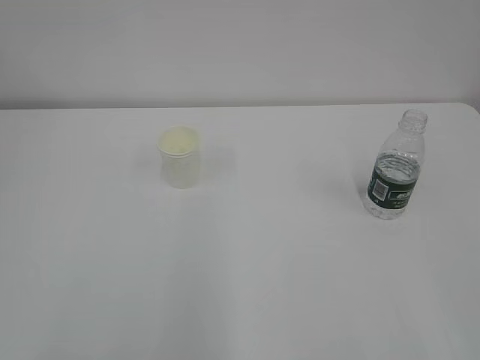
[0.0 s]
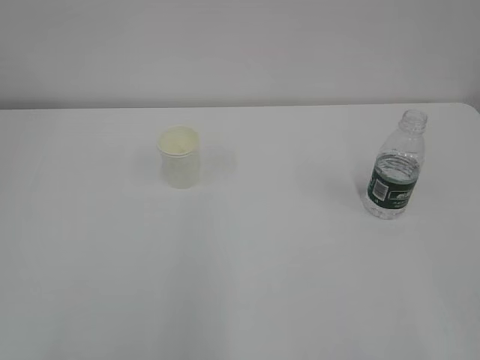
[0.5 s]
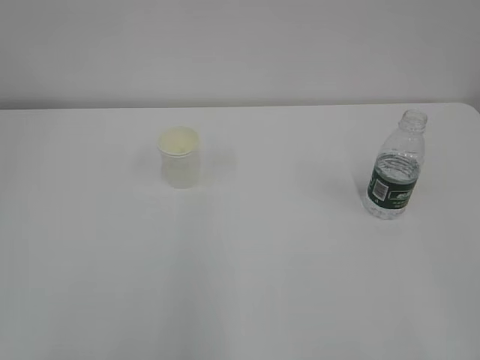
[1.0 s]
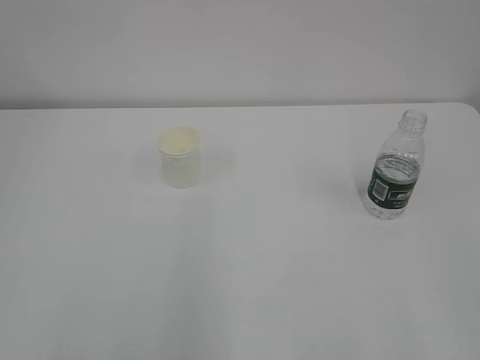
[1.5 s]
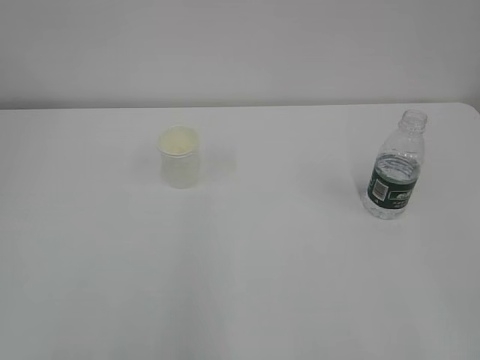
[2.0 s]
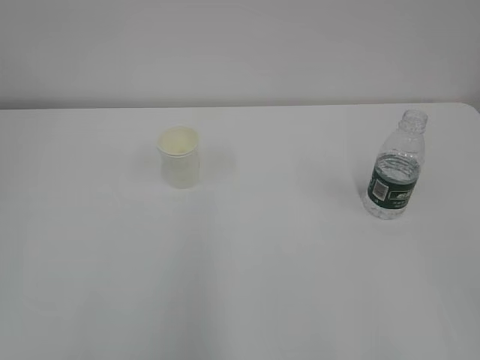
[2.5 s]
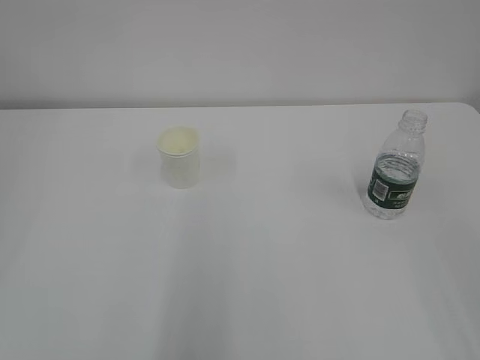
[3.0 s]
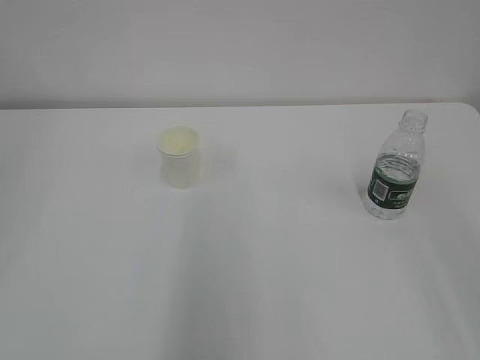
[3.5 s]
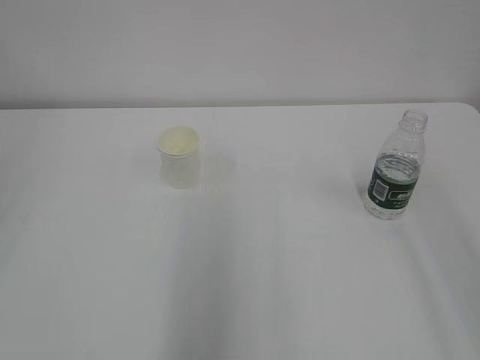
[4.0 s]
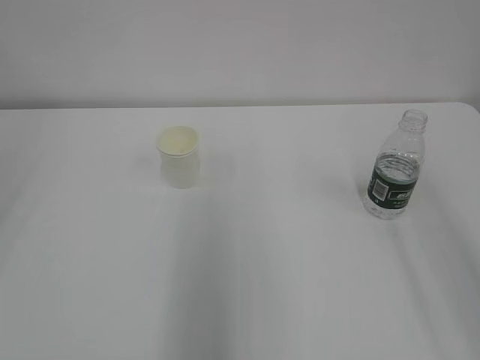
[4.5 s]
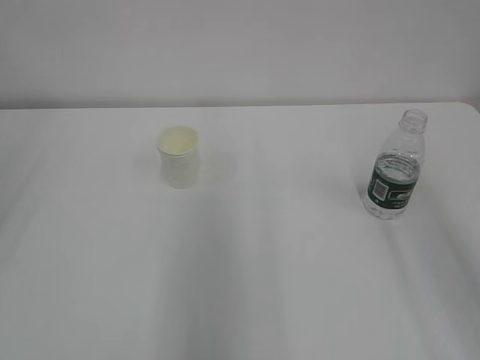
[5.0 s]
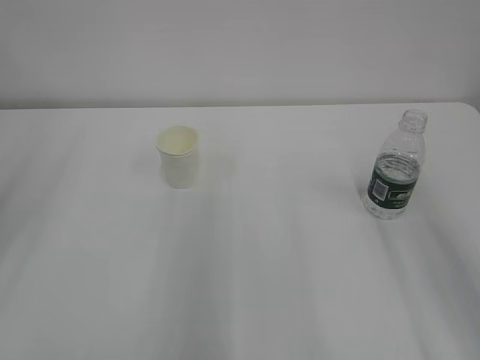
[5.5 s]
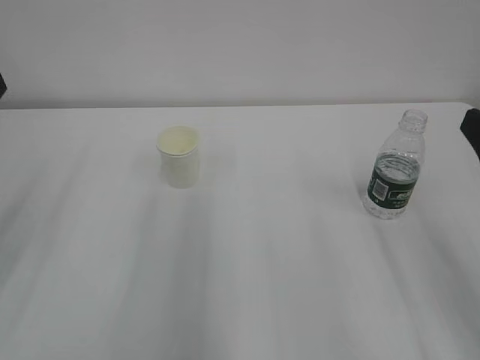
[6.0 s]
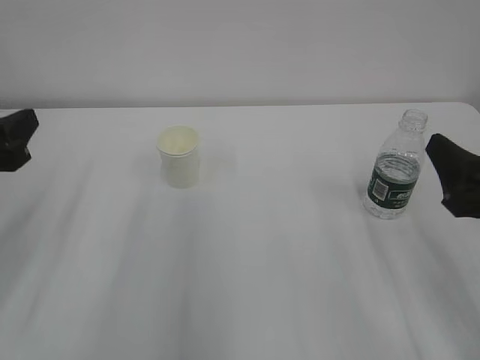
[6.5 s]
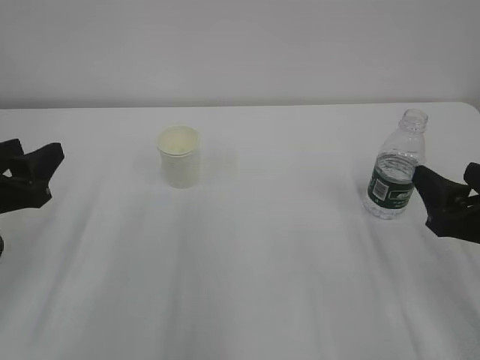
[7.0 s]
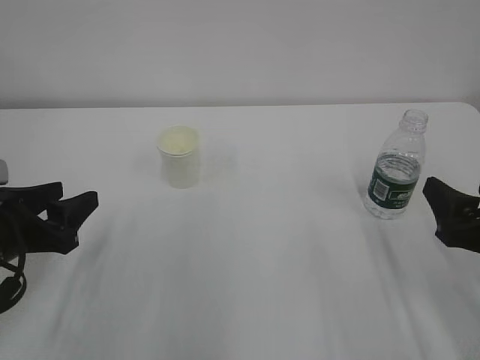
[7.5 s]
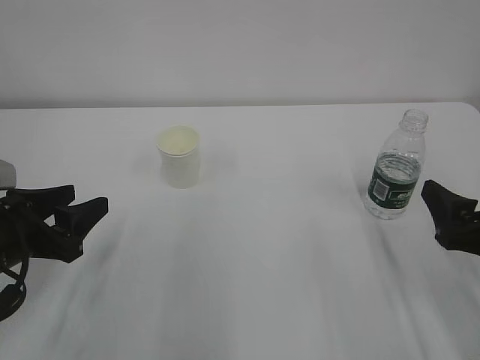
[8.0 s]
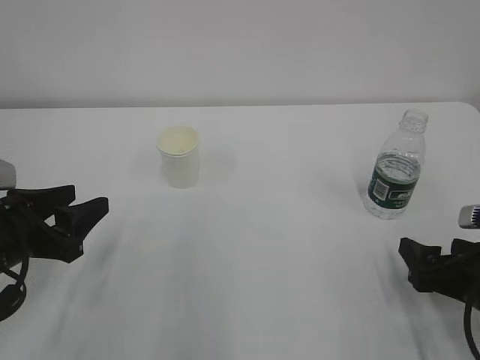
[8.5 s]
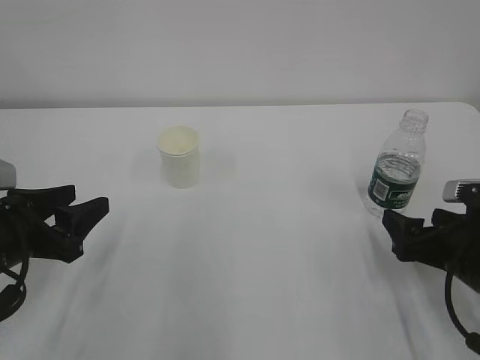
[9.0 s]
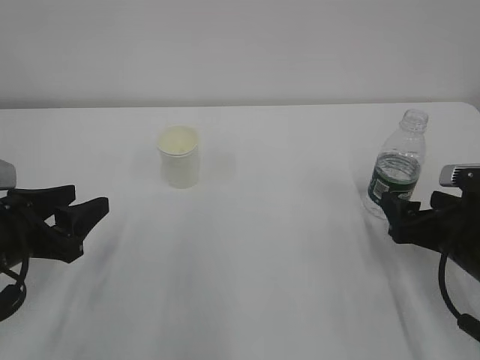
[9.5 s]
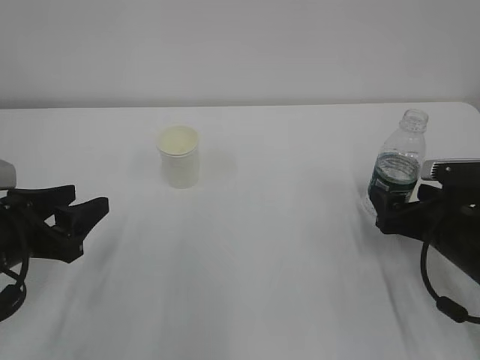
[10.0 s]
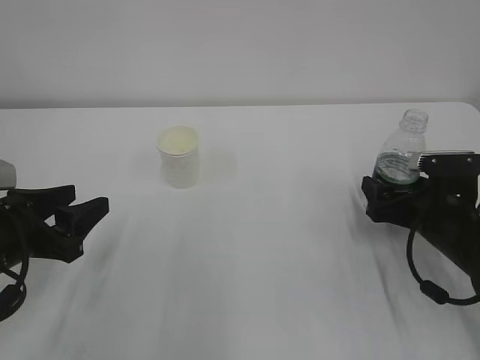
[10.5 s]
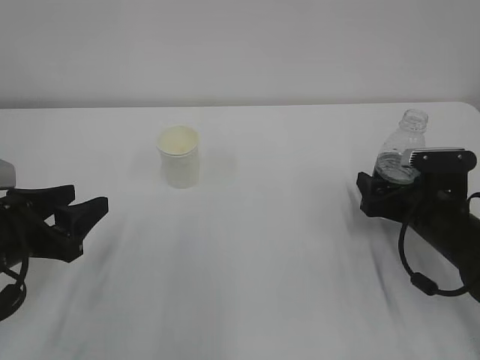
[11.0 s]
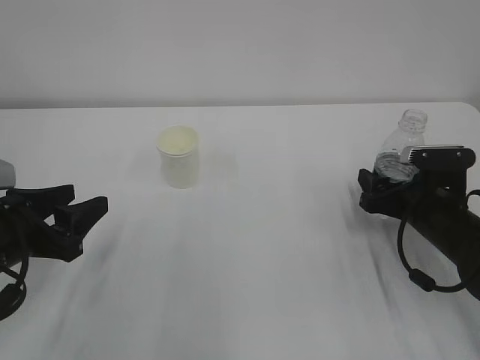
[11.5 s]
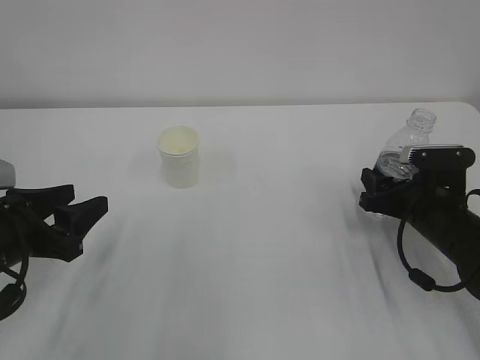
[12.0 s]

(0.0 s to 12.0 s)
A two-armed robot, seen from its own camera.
2.0 s - 4.0 s: The left gripper moves forward and upward, approximately 15 cm. Meanwhile the right gripper shifts about 15 cm upward and forward.
6.0 s - 8.0 s: Both grippers move downward, approximately 10 cm.
8.0 s - 10.0 s: The right gripper moves forward and downward, roughly 10 cm.
10.0 s - 12.0 s: The right gripper closes.

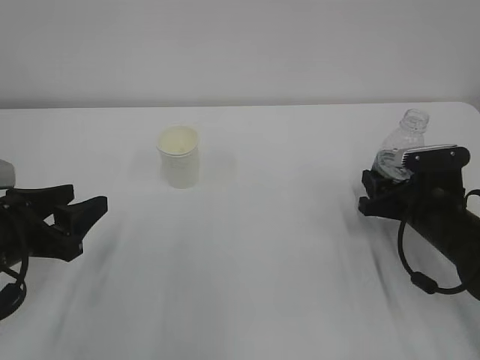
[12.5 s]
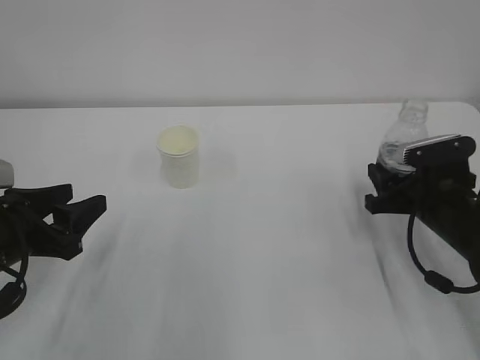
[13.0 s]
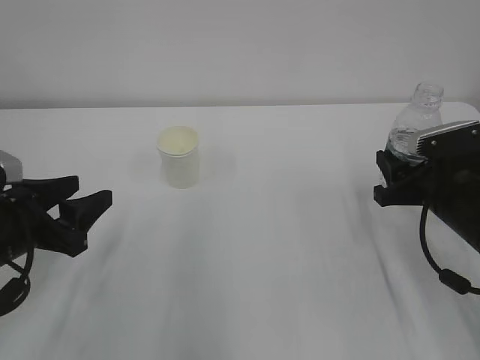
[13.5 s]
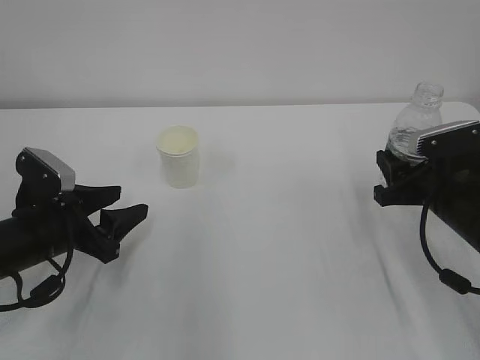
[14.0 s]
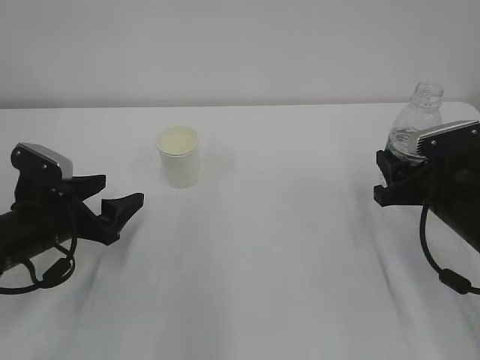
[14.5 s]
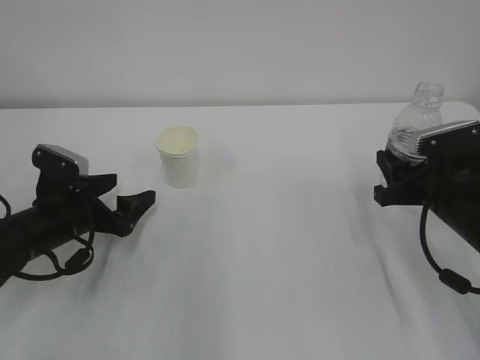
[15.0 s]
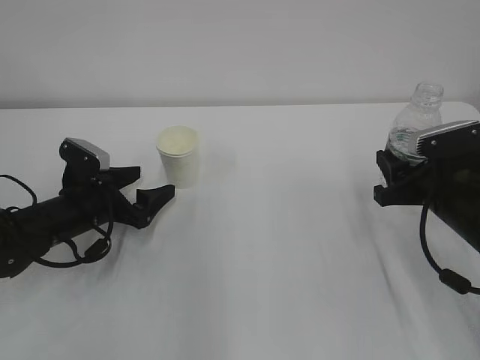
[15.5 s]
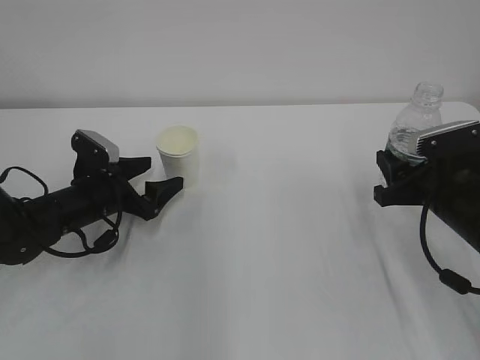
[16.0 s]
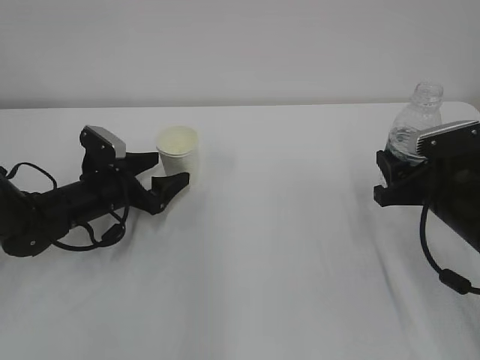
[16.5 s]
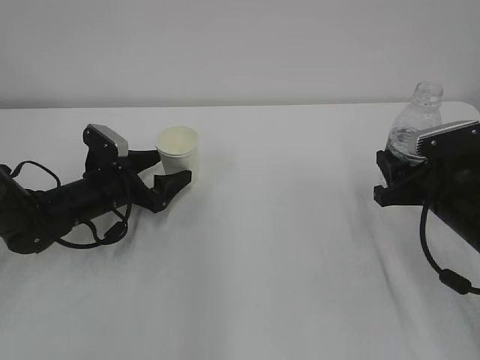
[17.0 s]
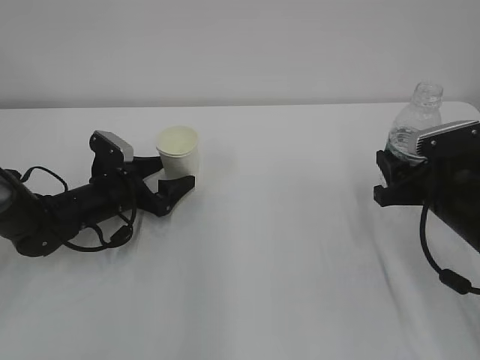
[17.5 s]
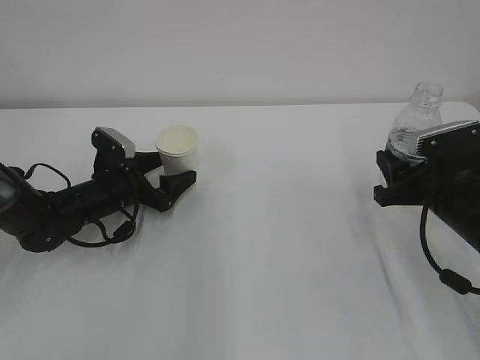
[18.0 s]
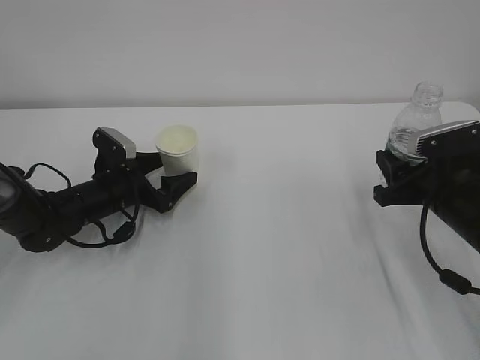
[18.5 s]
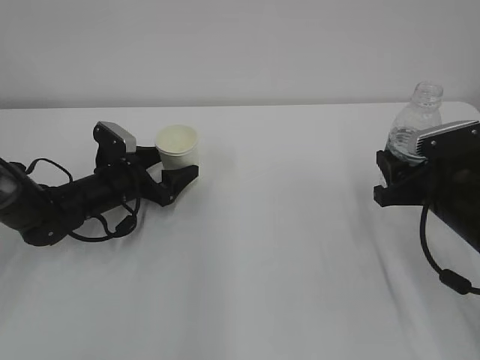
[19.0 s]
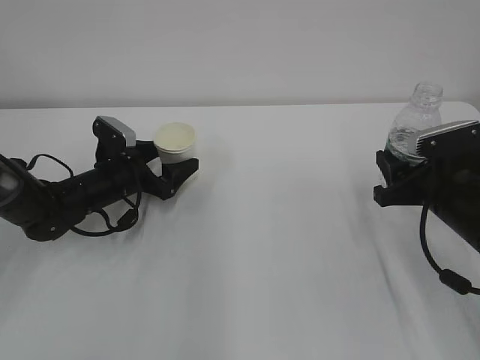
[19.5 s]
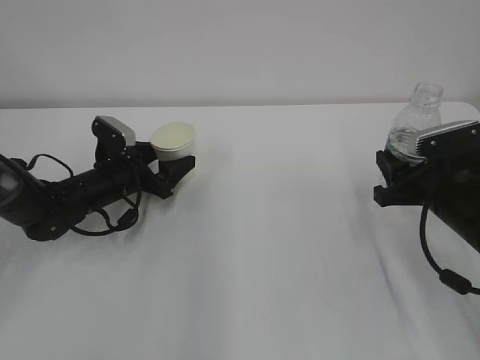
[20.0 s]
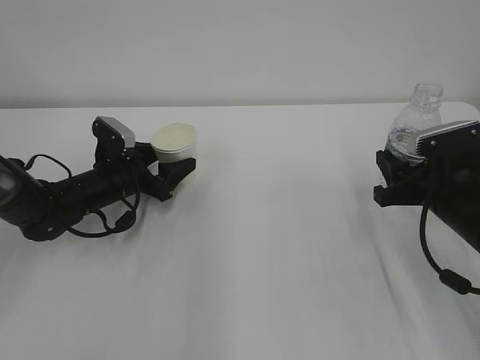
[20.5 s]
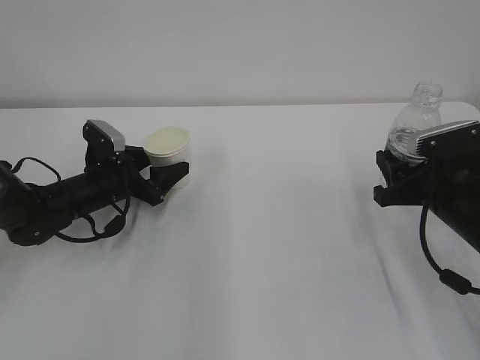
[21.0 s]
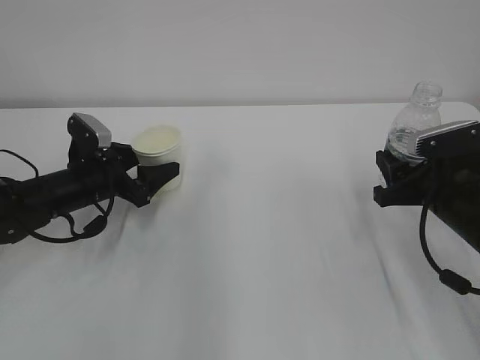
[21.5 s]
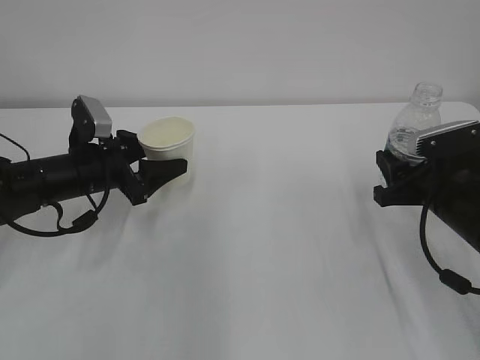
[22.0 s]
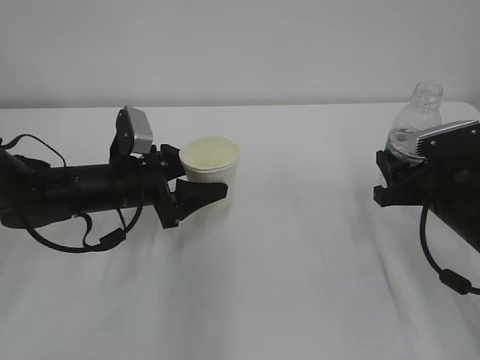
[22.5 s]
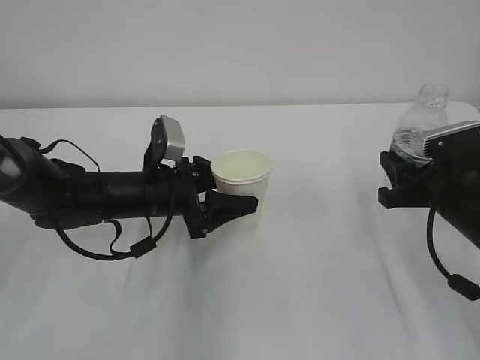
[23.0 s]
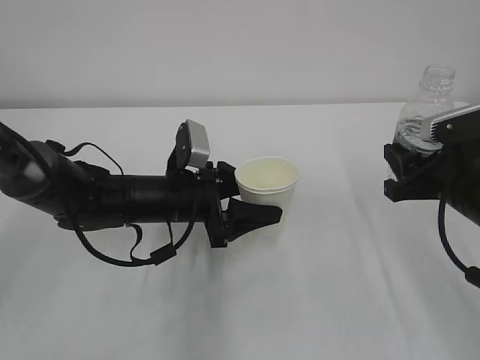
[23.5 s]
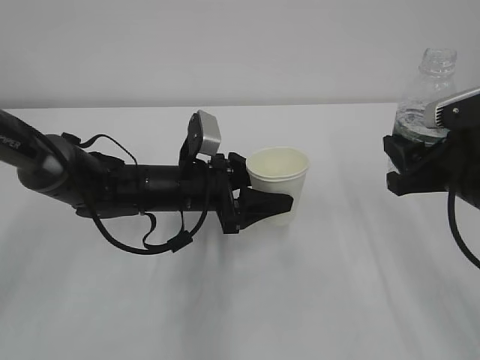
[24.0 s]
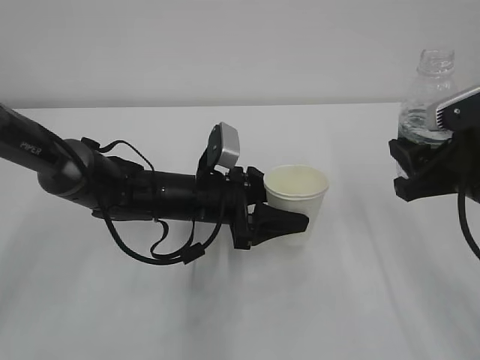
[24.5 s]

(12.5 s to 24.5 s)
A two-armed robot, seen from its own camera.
12.5 s - 14.5 s: The right gripper changes place by approximately 5 cm. Meanwhile the left gripper shifts some 5 cm forward, and opens.
14.5 s - 16.5 s: The left gripper shifts approximately 10 cm forward.
16.5 s - 18.5 s: The grippers stay close to where they were, moving slightly.
18.5 s - 20.5 s: The left gripper closes its fingers.
20.5 s - 22.5 s: The left gripper goes approximately 10 cm backward and upward.
22.5 s - 24.5 s: The left gripper shifts some 10 cm to the right. Meanwhile the right gripper goes about 5 cm upward.

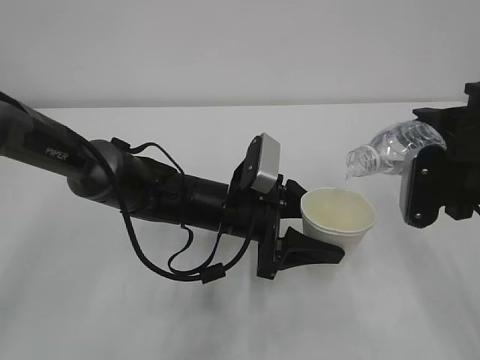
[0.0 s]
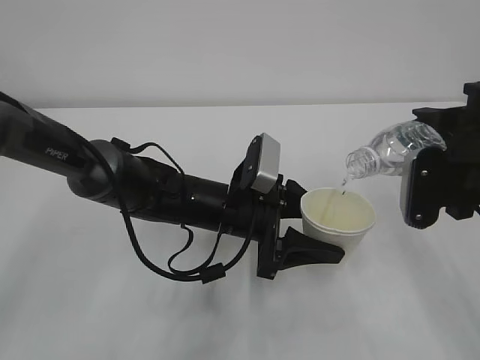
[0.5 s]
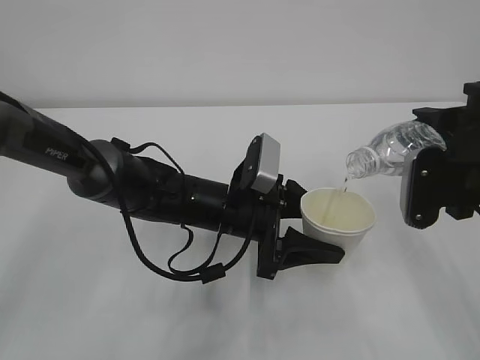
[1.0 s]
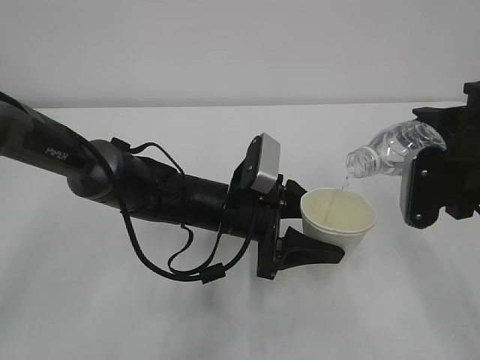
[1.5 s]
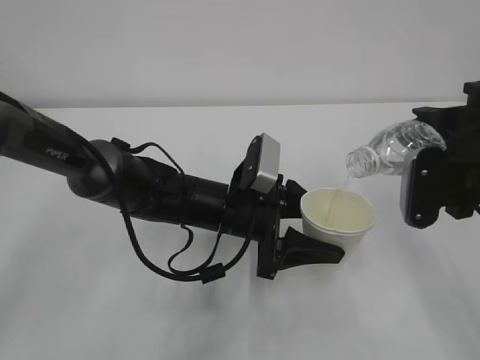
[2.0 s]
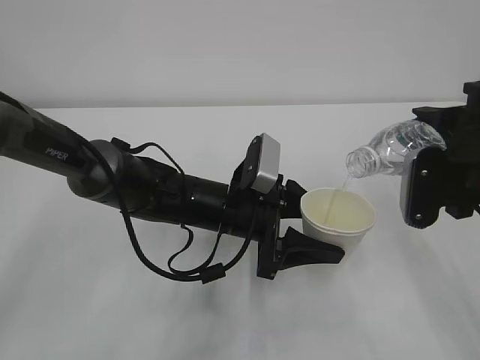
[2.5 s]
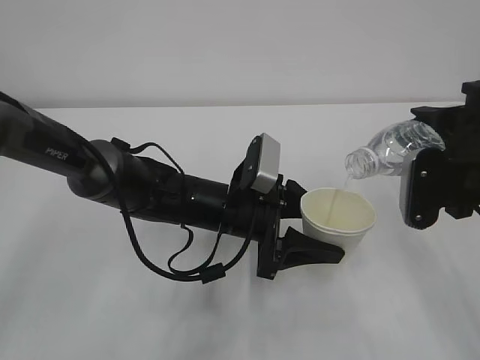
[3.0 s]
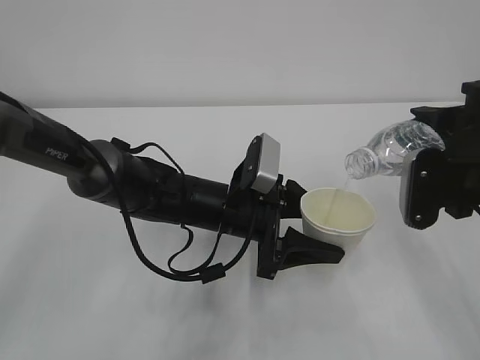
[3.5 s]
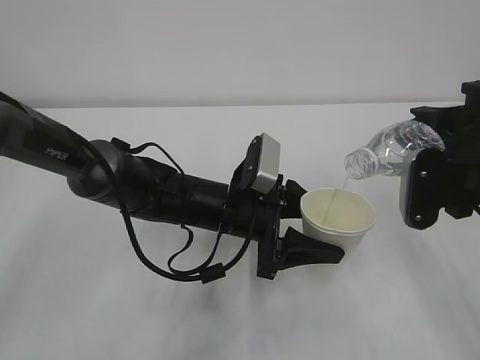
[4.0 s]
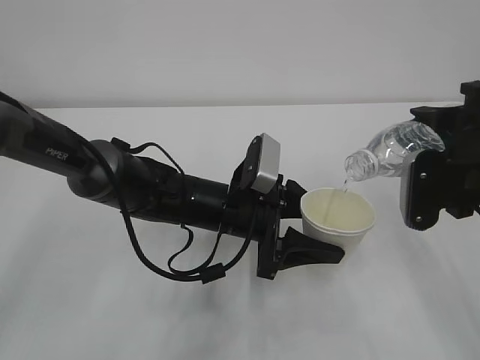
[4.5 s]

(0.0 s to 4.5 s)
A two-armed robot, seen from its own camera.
0.0 s - 4.5 s: Neither gripper changes place.
